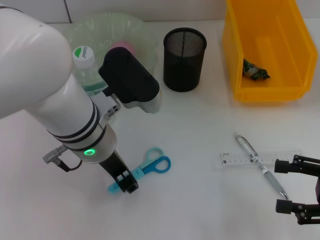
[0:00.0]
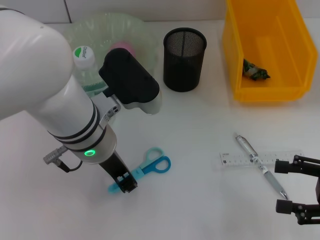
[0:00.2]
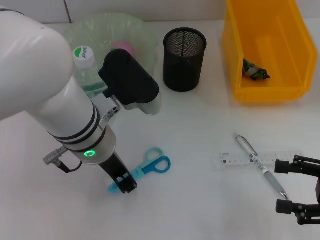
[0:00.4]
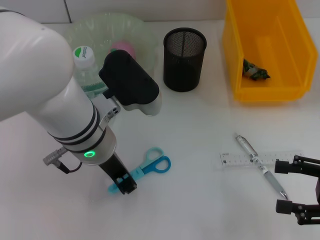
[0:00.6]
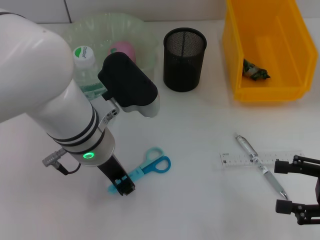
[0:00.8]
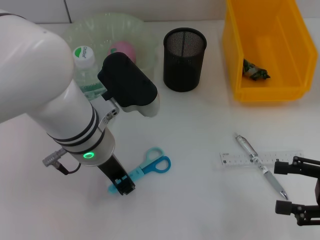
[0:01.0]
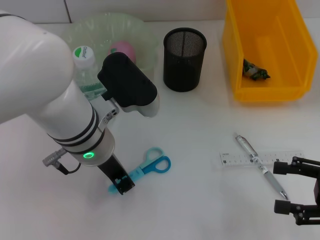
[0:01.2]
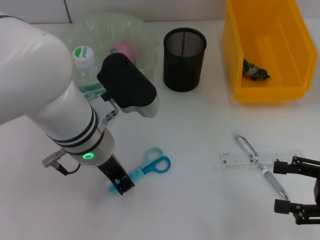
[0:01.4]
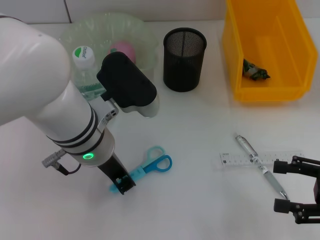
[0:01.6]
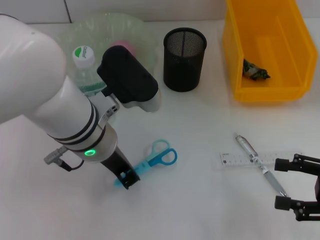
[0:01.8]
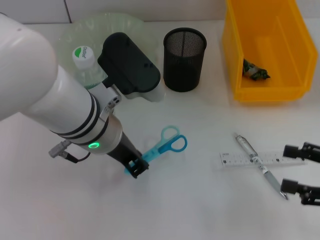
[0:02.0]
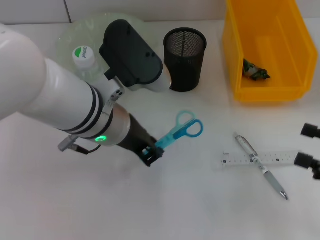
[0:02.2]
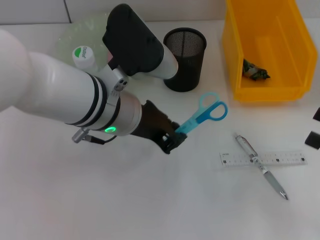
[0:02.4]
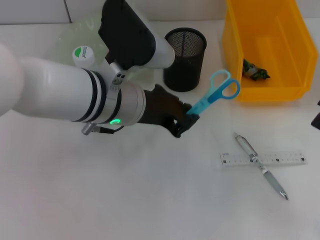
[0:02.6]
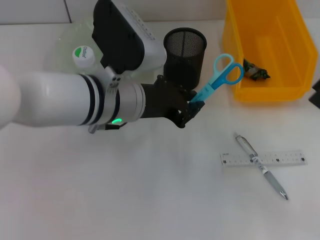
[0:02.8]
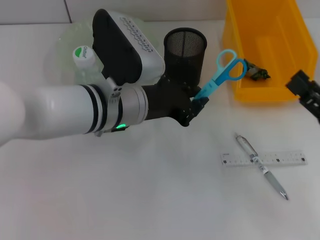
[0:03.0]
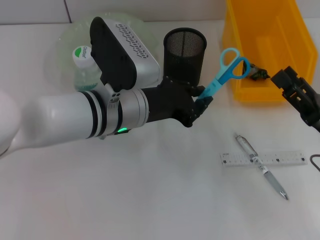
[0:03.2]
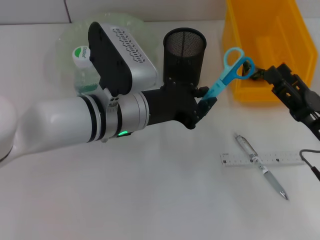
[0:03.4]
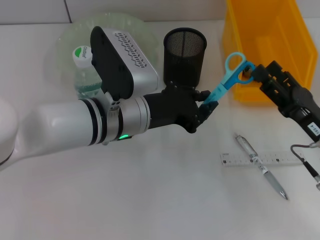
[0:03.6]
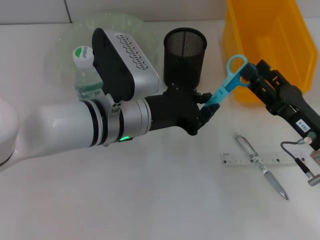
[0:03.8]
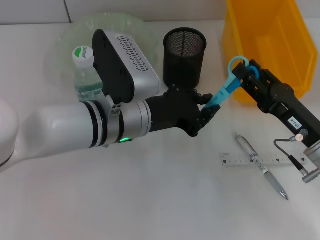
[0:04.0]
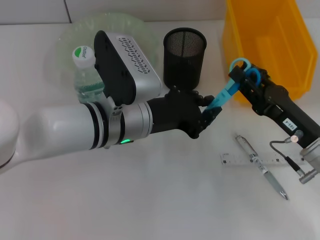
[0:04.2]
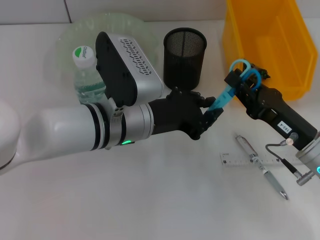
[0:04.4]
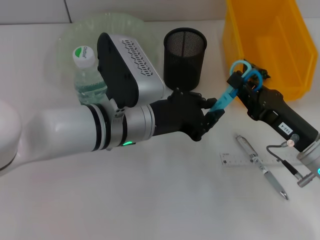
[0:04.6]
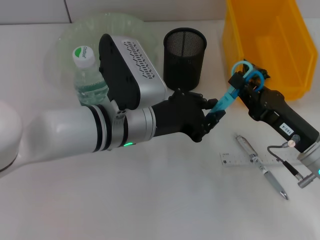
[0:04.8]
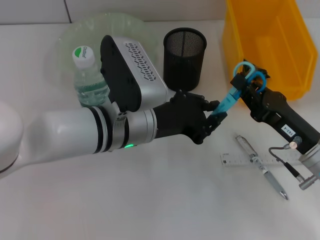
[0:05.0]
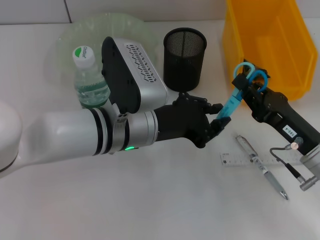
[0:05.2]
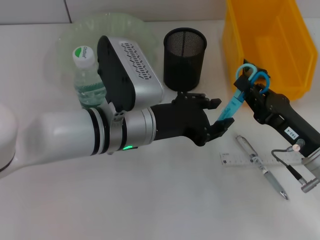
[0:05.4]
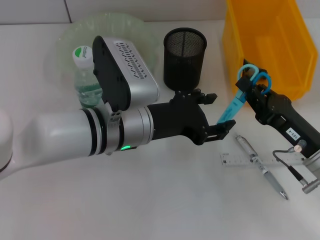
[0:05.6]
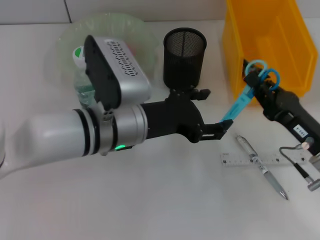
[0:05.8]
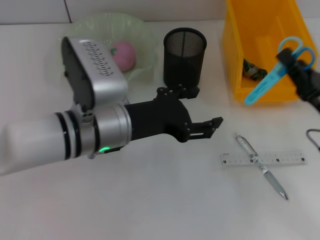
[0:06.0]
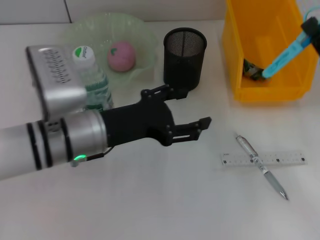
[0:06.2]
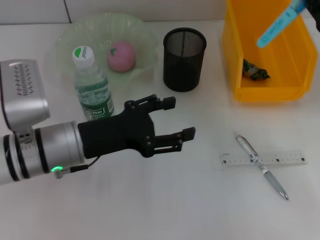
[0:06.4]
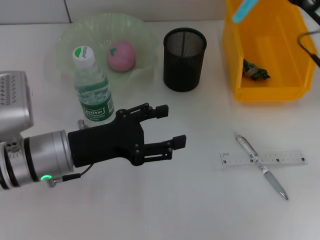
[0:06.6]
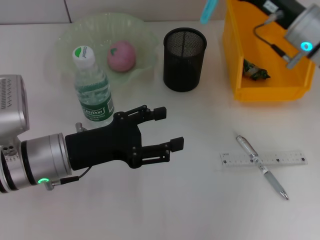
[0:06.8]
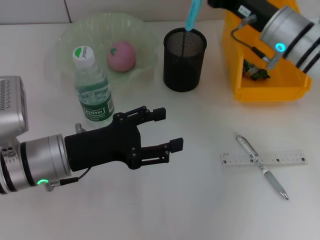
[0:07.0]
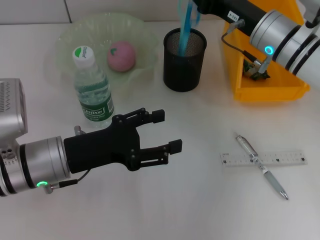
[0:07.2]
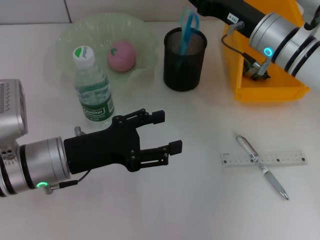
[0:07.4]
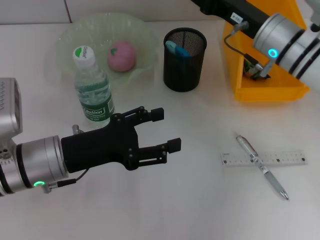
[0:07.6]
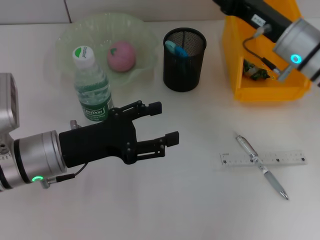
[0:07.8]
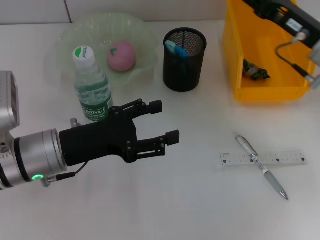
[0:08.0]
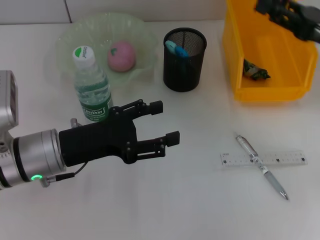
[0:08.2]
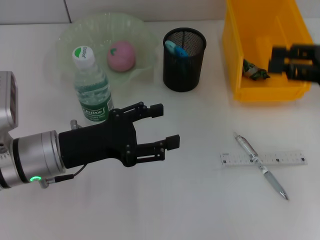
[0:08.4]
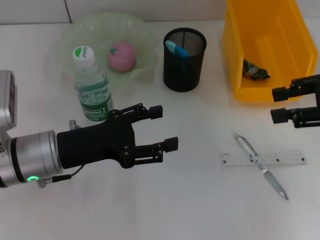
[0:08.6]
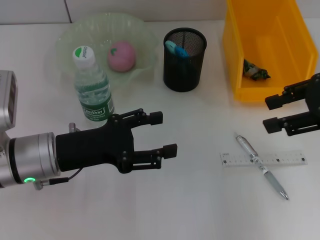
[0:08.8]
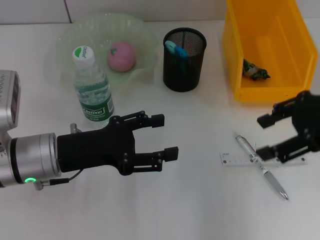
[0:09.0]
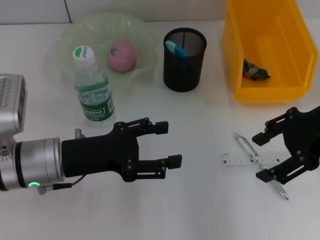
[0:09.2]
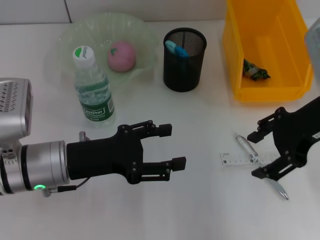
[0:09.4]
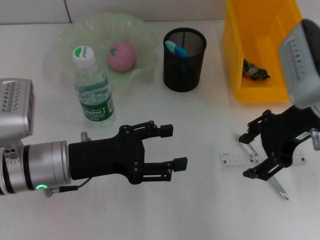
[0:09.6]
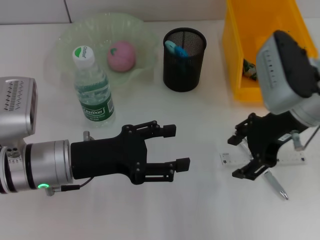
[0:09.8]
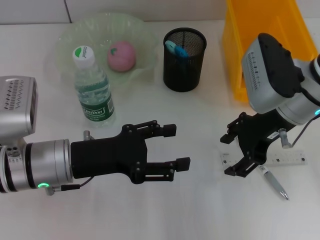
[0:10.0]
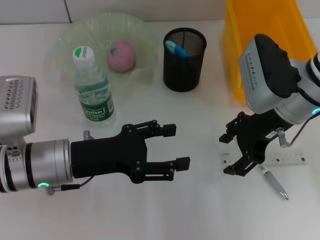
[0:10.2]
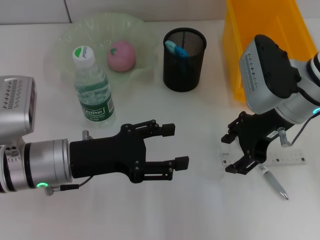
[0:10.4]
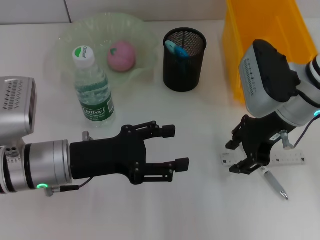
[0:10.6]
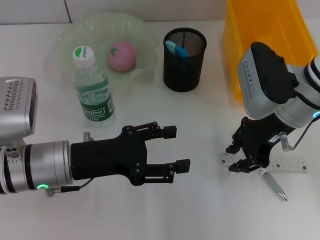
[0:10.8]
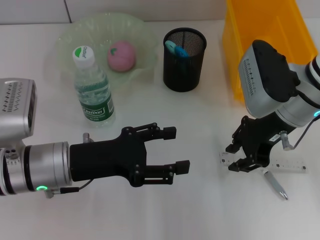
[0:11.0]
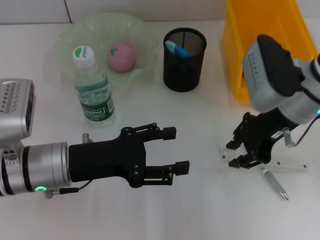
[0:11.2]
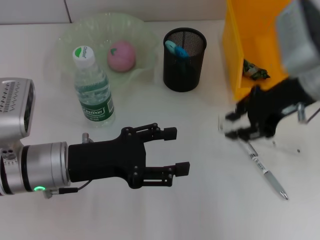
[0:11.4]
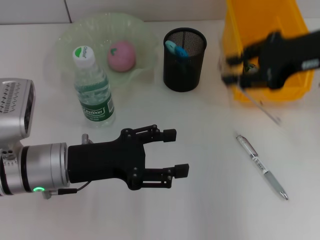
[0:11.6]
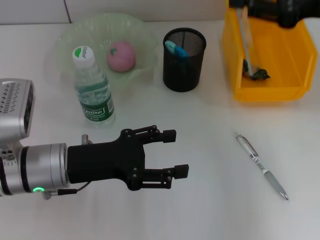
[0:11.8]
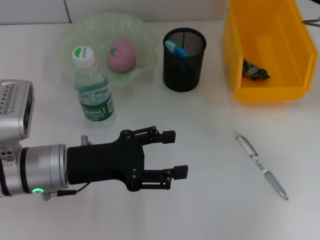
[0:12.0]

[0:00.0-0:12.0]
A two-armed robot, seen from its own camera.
Step, 0:01.4 to 0:05.2: Pass the blue scissors from the left hand to the right hand.
Step, 0:05.6 to 0:07.4: Place the blue scissors into the pen holder with the right hand.
Step, 0:07.6 to 0:10.6: Grab the ruler with the right hand.
0:00.0 to 0:01.6: The left gripper closes.
0:03.0 to 0:04.4: The right gripper moves to the left, some 5 cm, and closes up.
0:04.4 to 0:06.0: The right gripper ends up about 5 cm from where it was, and closes, while the left gripper opens up.
0:06.0 to 0:07.6: The right gripper heads forward, to the left and upward, covering approximately 20 cm, and opens up; the left gripper moves to the left, roughly 10 cm.
0:07.6 to 0:09.0: The right gripper is displaced backward, upward and to the right by some 15 cm.
0:09.0 to 0:10.4: The right gripper heads to the left and downward, covering about 10 cm.
0:10.4 to 0:12.0: The right gripper heads to the right and upward, covering about 10 cm, and closes its fingers.

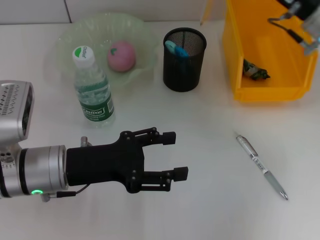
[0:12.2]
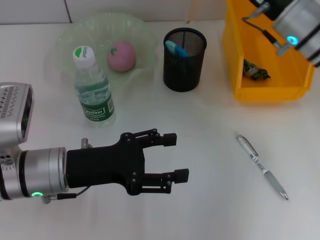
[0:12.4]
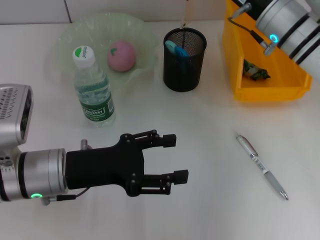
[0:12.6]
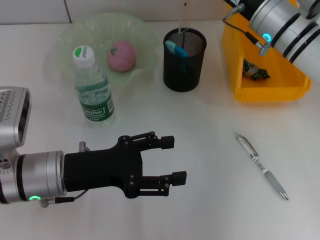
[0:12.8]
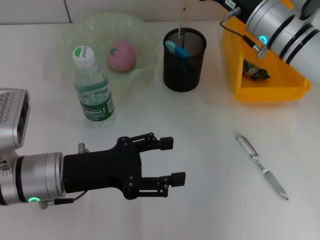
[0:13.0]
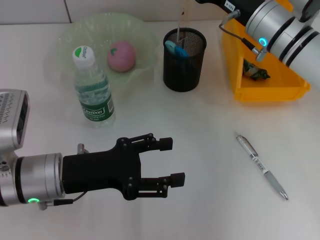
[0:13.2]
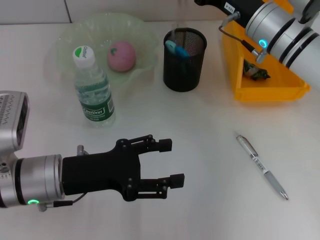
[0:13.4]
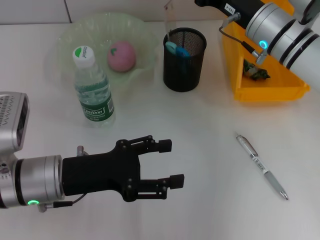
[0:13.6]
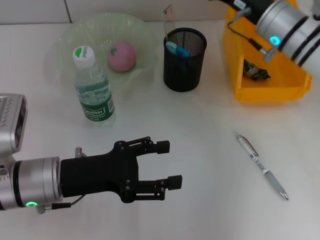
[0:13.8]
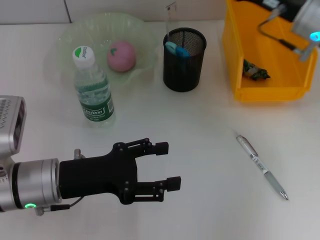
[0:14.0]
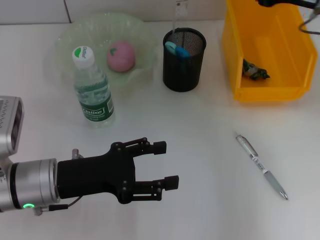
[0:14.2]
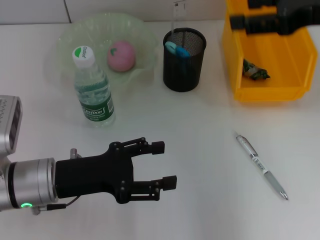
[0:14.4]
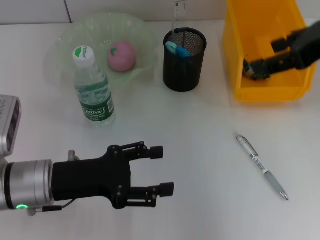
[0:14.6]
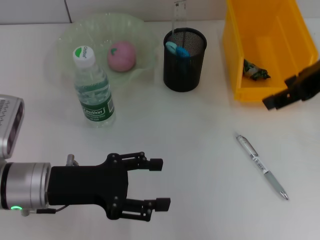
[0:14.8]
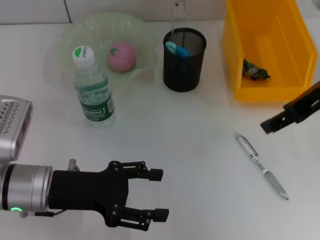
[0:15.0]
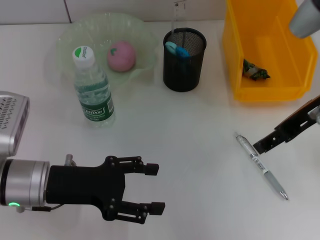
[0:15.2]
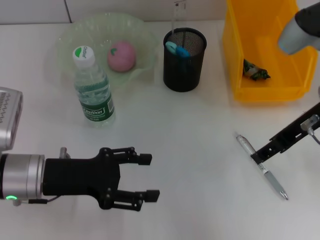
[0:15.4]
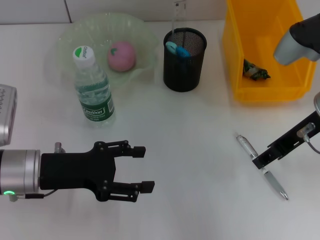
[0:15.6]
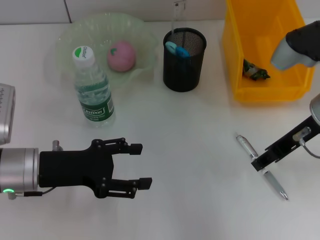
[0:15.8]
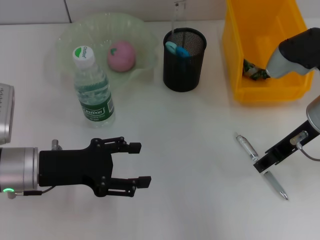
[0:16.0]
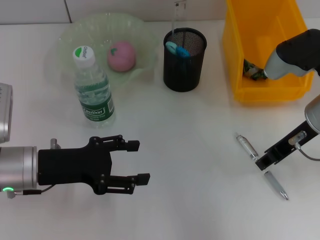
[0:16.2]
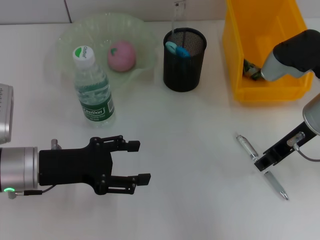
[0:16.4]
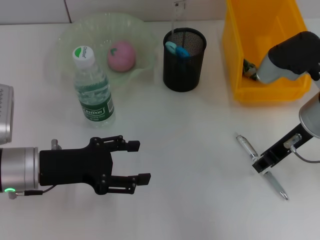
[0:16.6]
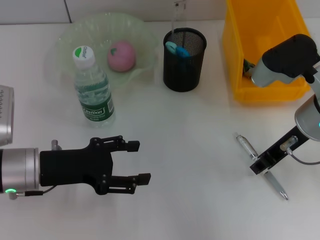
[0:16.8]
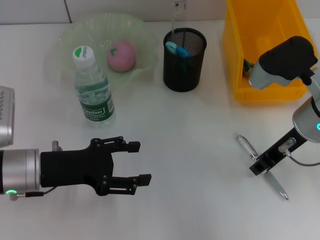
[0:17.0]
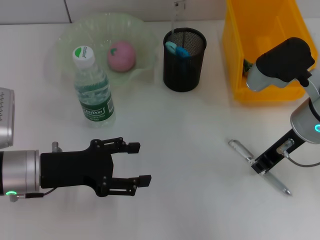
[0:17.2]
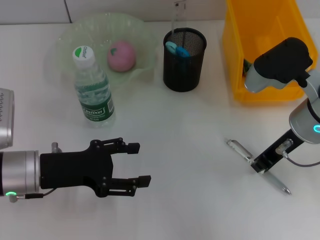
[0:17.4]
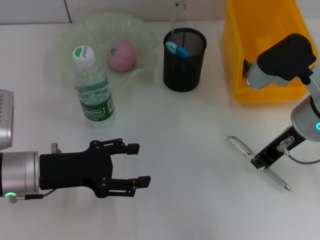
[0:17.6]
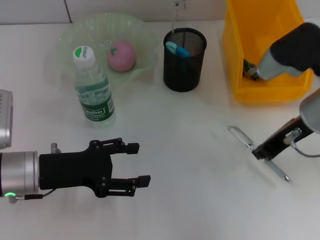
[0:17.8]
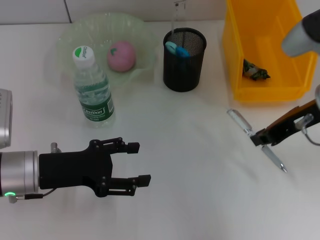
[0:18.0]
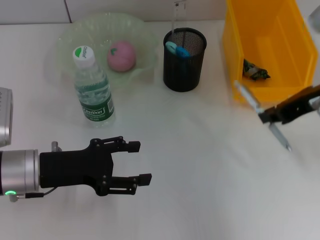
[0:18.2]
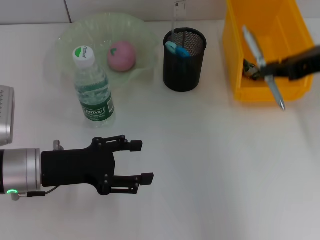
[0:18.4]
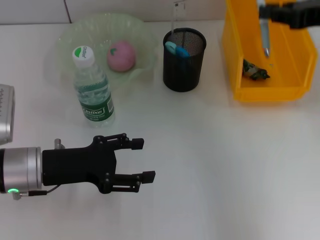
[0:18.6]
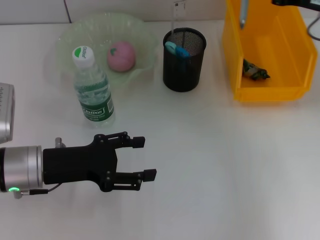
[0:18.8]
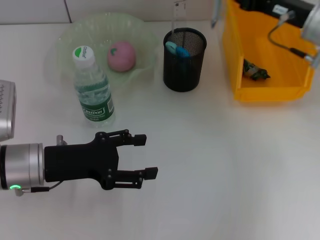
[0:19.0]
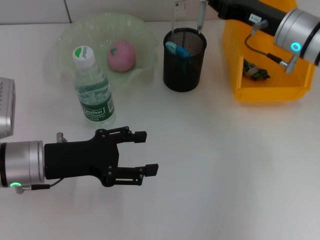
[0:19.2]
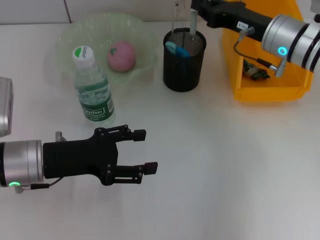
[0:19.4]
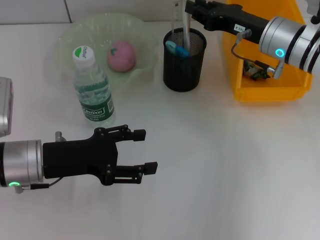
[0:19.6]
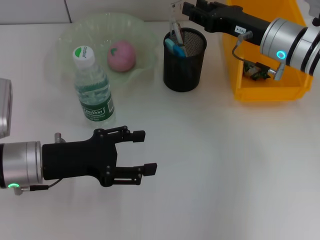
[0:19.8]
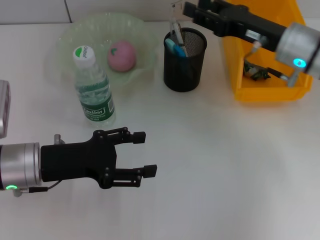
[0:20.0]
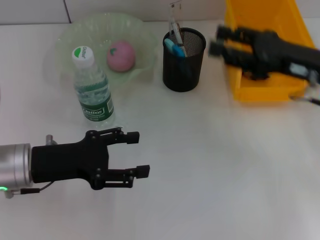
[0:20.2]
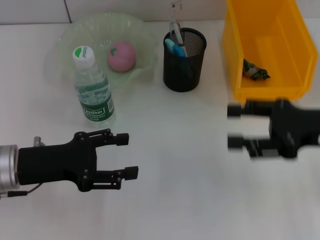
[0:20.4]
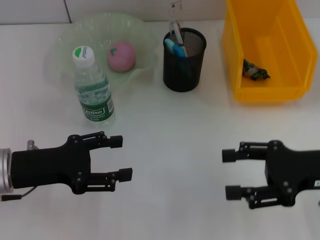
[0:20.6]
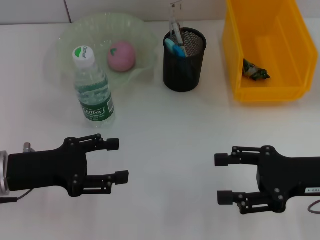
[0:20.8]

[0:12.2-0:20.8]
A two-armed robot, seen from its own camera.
Step, 0:12.2 to 0:13.6: Place the ruler into the pen holder with the right hand.
Step, 0:13.8 to 0:17.4: Grab the gray spring-action pen with the right hand.
Step, 0:17.6 to 0:19.6: Place the gray spring-action pen into the pen holder with the right hand.
0:12.2 to 0:13.6: The right gripper goes some 5 cm to the left.
0:13.6 to 0:15.0: The right gripper moves upward, backward and to the right, some 15 cm, and opens.
0:15.0 to 0:16.6: The right gripper heads downward, covering roughly 10 cm, and closes its fingers.
0:16.6 to 0:18.0: The right gripper closes.
0:18.0 to 0:19.4: The right gripper is displaced forward and downward by roughly 10 cm.
0:19.4 to 0:20.8: The right gripper goes approximately 15 cm backward, and opens up.
